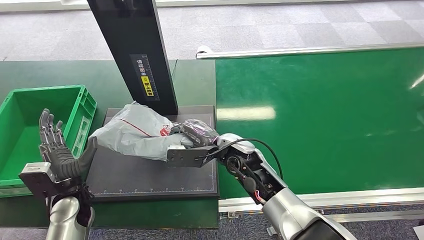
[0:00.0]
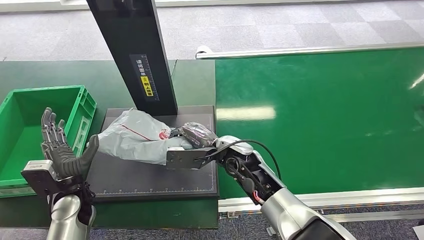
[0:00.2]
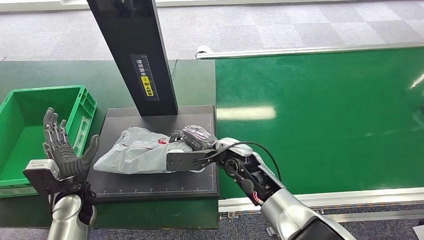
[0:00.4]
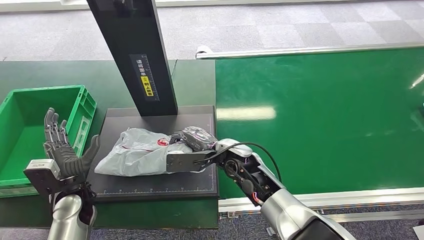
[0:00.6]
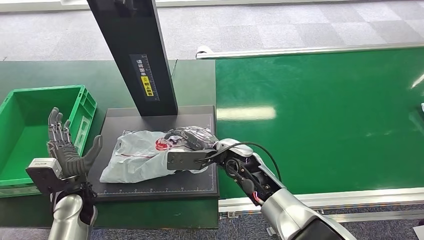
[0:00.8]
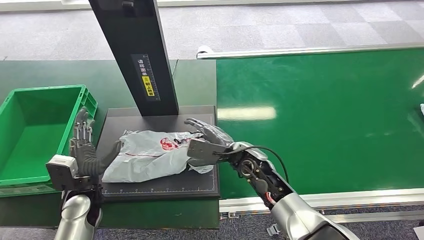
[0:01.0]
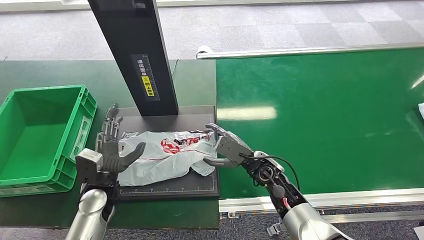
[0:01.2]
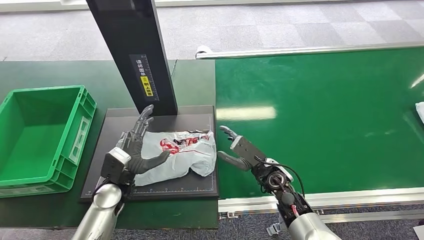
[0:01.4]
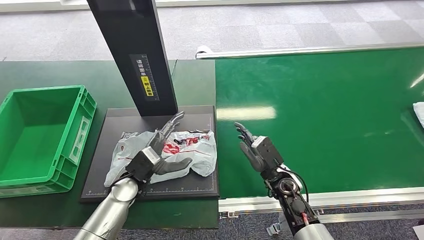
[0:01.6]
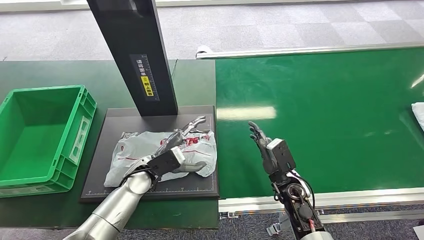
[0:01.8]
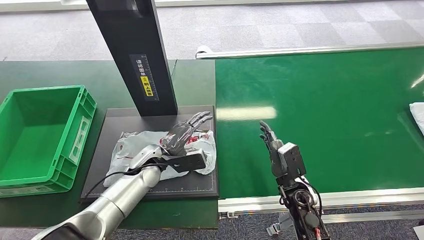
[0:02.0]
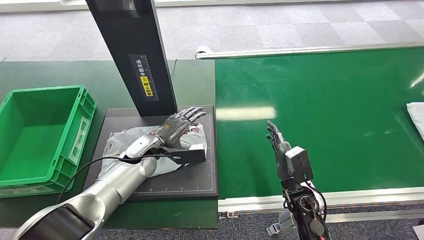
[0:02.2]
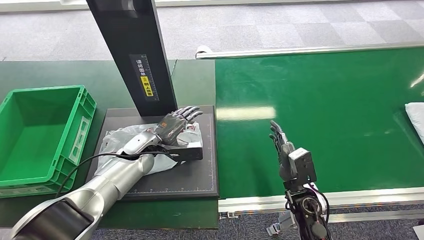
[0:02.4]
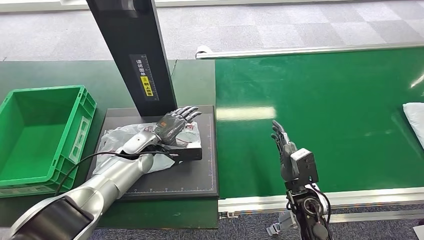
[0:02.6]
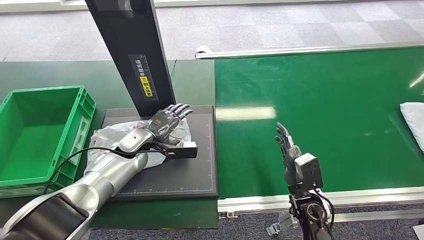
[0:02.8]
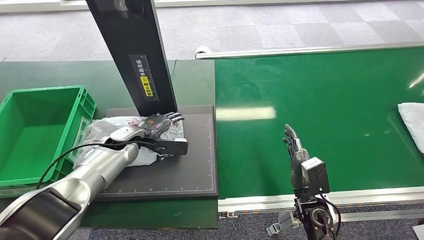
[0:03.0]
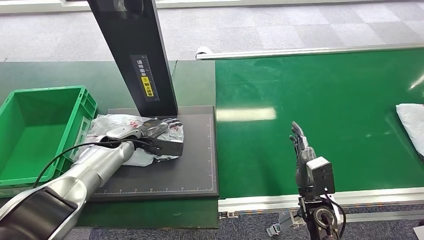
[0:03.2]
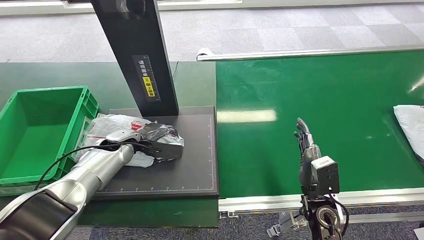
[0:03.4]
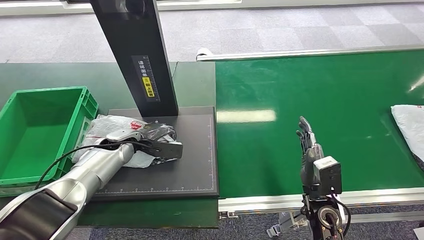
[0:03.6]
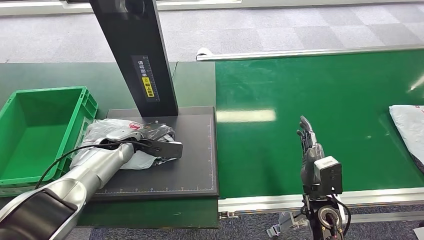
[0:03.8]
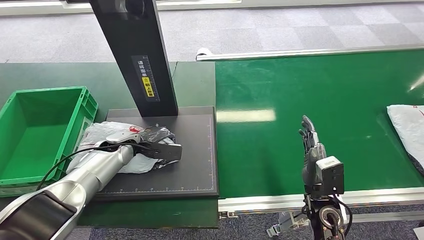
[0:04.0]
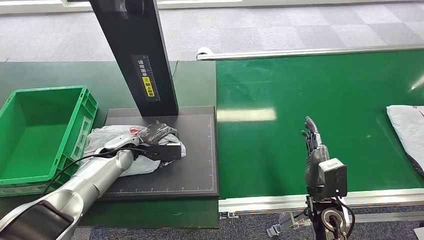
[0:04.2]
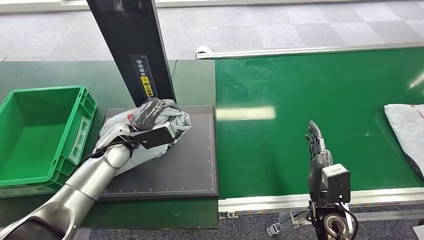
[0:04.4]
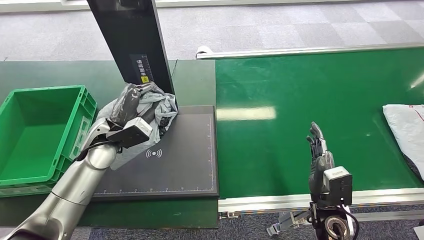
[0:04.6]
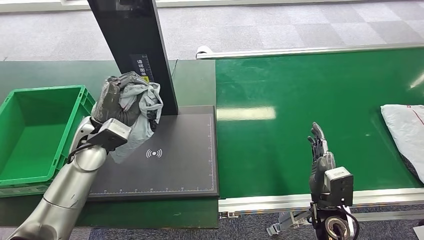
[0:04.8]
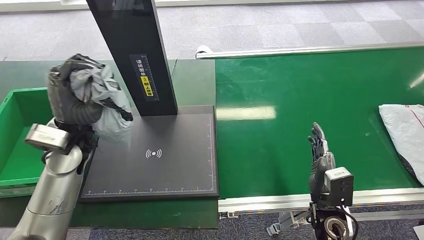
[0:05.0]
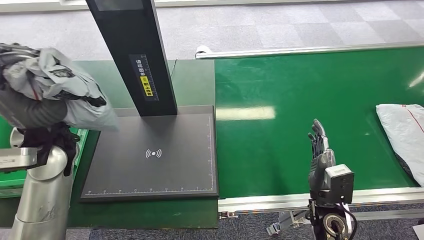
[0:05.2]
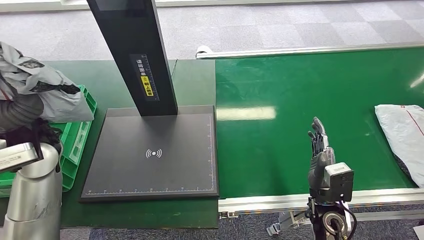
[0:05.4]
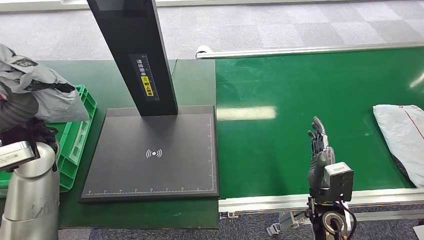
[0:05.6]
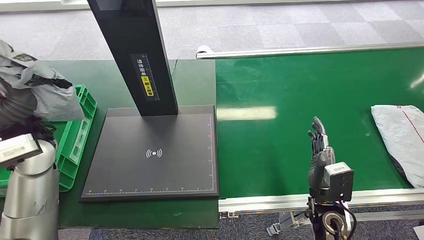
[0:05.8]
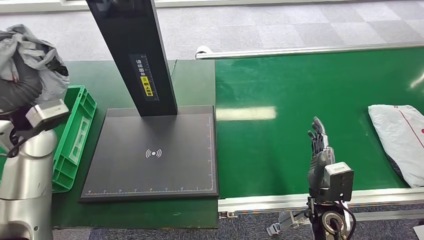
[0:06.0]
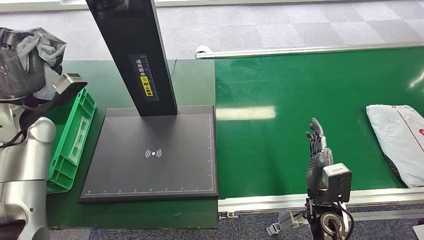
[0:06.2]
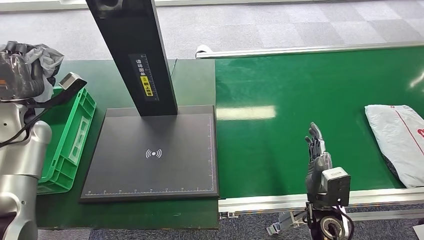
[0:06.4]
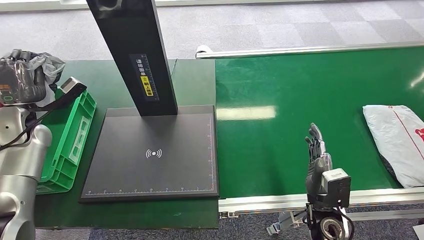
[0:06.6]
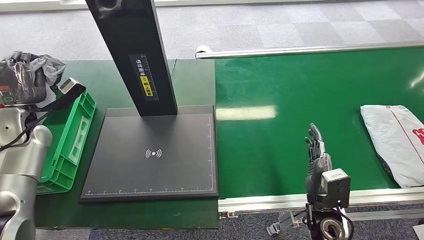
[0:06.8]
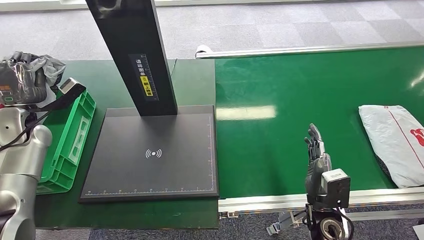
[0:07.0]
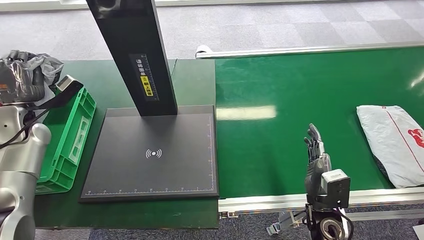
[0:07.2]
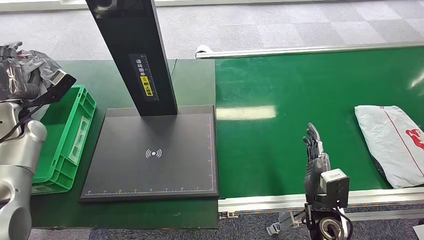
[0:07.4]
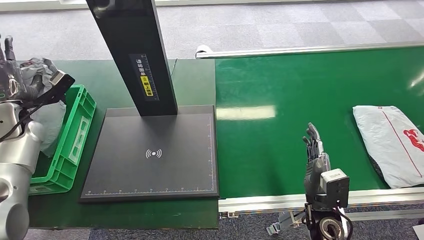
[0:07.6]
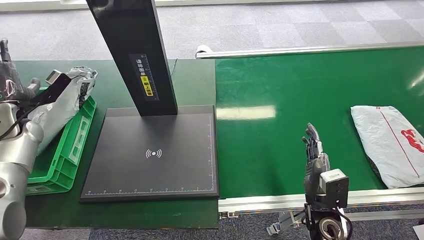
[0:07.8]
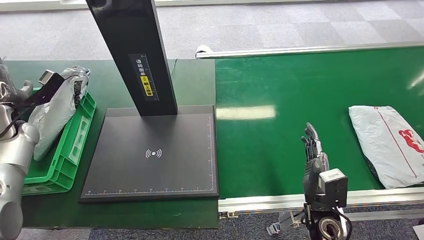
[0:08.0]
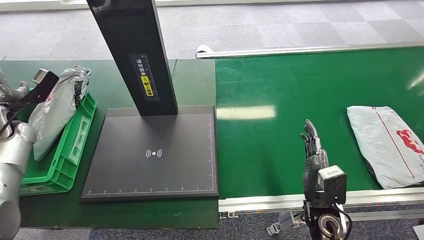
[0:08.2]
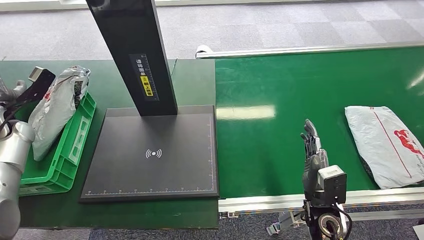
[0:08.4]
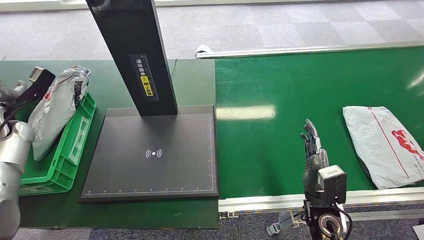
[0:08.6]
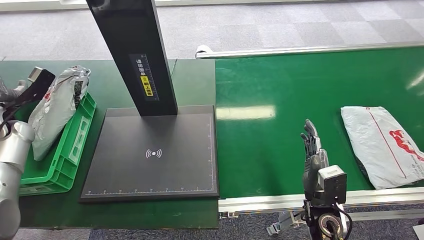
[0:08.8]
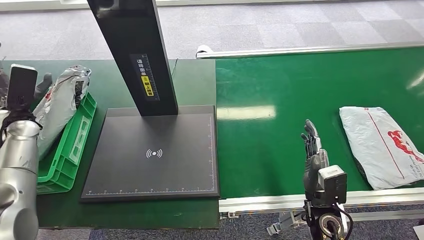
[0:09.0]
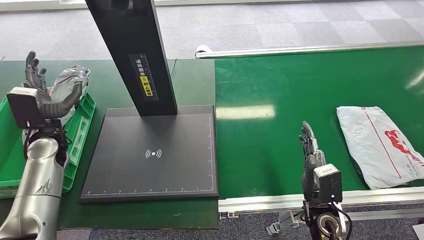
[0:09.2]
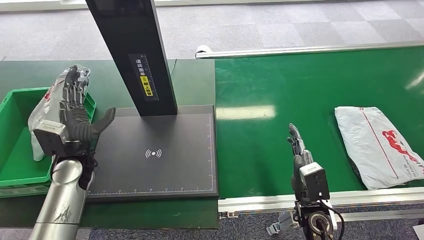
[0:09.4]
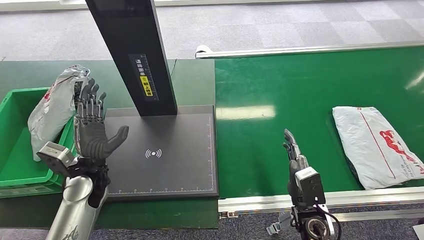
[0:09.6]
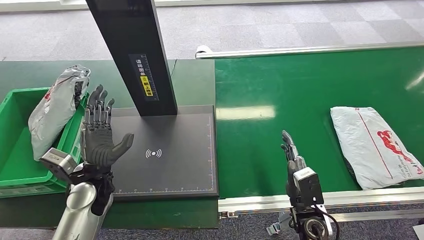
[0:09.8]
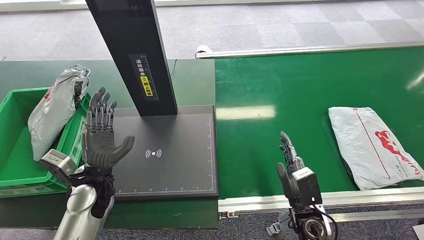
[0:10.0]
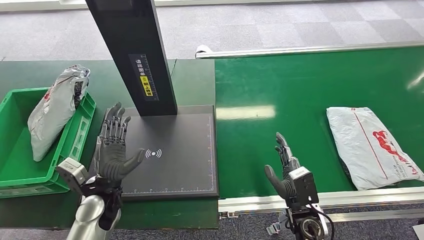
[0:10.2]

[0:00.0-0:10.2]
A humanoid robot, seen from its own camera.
Step, 0:01.4 to 0:05.0: Pick up the package from the inbound machine.
Step, 0:05.2 to 0:10.2: Place the package into the parcel locker.
0:00.0 to 0:01.4: The right hand heads to the right and downward, covering about 15 cm; the left hand moves to the right, roughly 10 cm.
0:03.0 to 0:04.4: The left hand shifts by roughly 5 cm.
0:05.8 to 0:07.2: The left hand moves to the left, forward and downward, roughly 20 cm.
0:07.2 to 0:08.8: The left hand ends up roughly 5 cm from where it was.
0:08.8 to 0:10.2: The left hand is displaced to the right, backward and downward by some 30 cm.

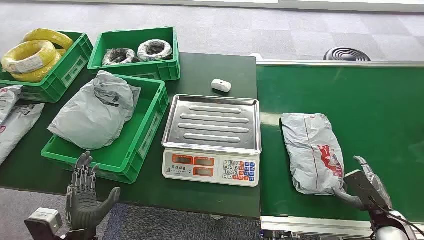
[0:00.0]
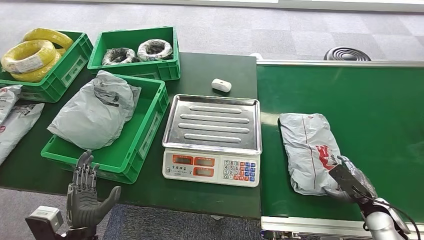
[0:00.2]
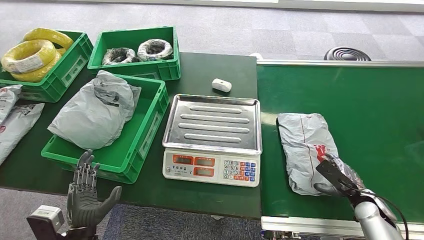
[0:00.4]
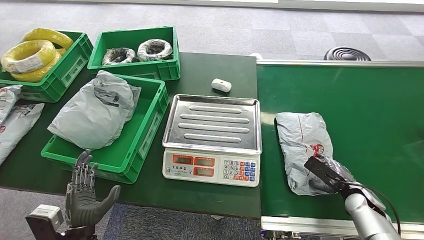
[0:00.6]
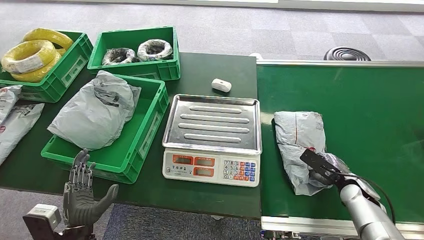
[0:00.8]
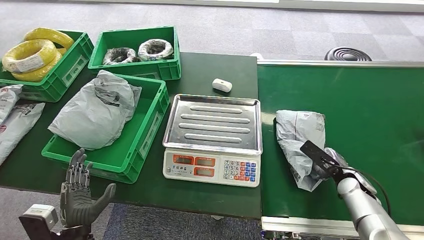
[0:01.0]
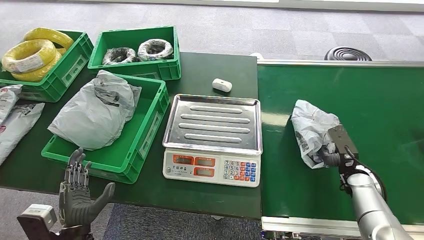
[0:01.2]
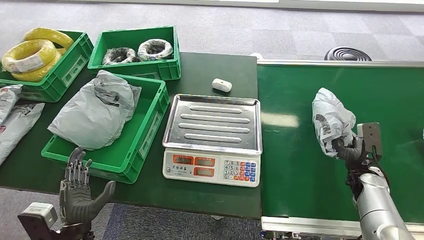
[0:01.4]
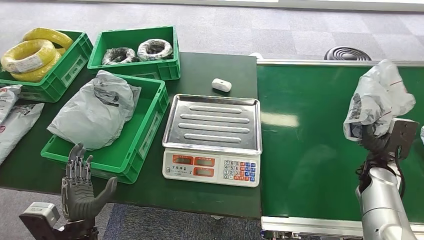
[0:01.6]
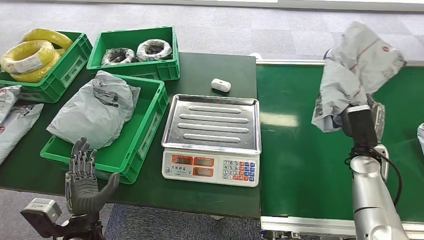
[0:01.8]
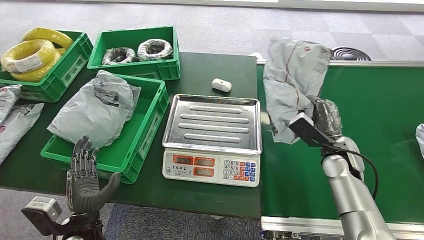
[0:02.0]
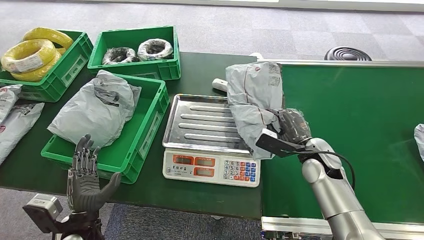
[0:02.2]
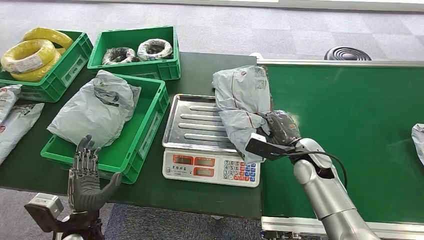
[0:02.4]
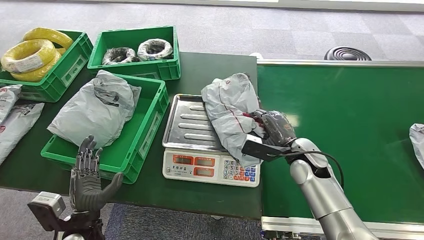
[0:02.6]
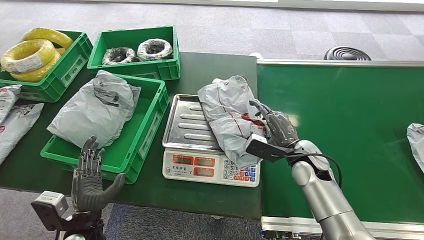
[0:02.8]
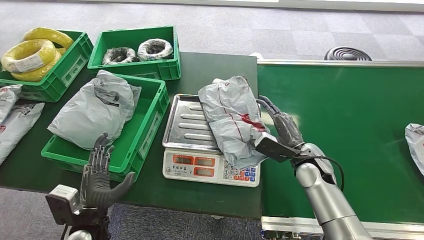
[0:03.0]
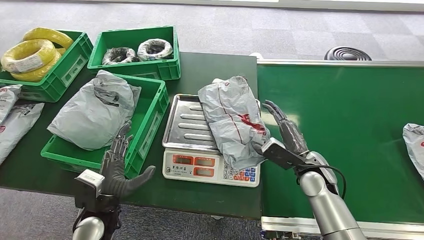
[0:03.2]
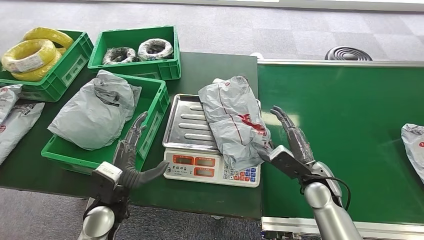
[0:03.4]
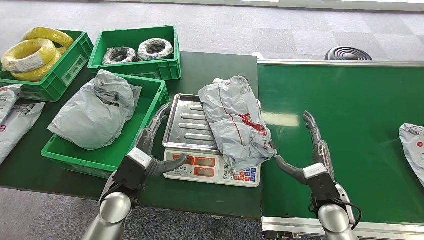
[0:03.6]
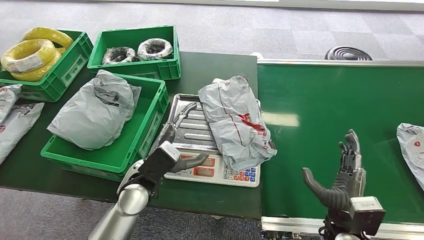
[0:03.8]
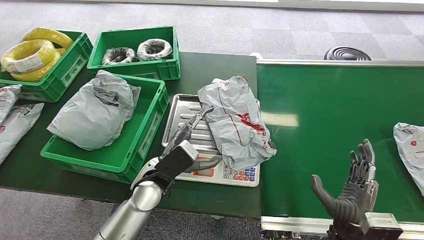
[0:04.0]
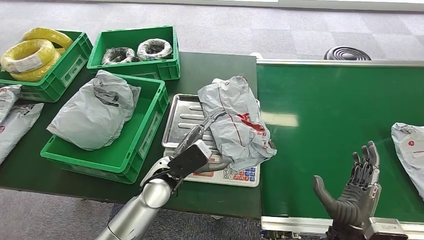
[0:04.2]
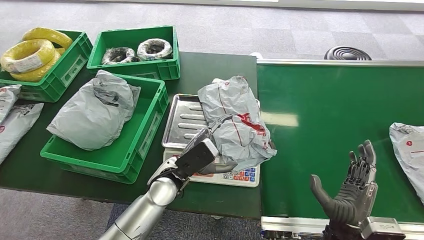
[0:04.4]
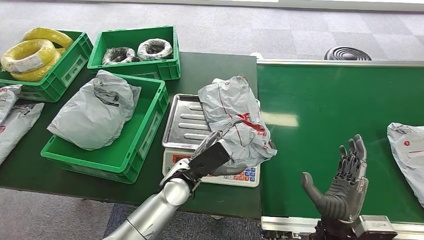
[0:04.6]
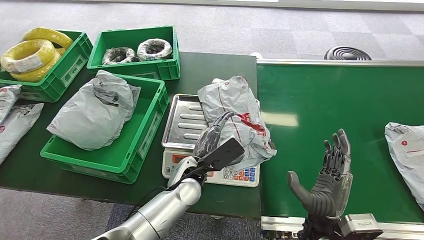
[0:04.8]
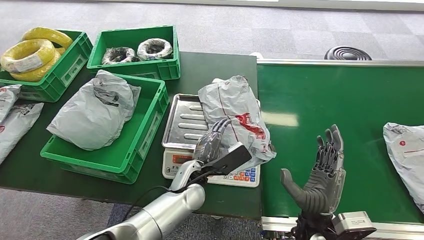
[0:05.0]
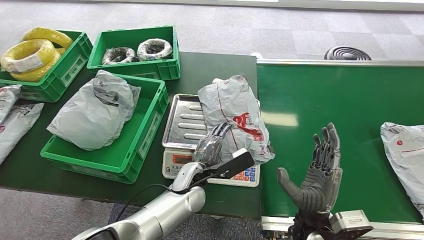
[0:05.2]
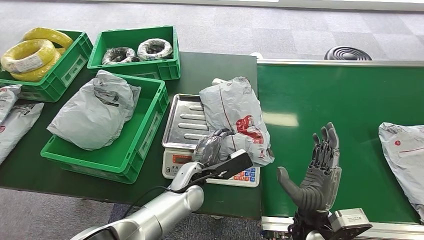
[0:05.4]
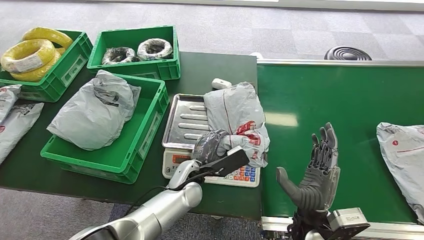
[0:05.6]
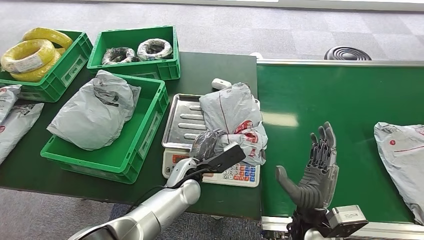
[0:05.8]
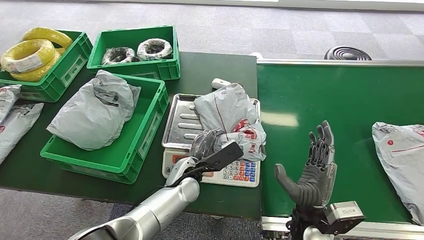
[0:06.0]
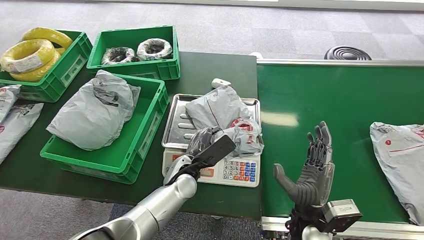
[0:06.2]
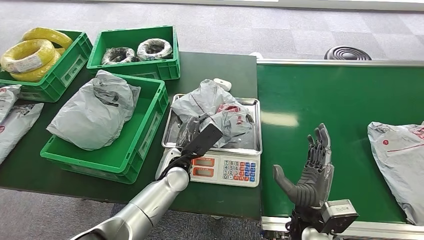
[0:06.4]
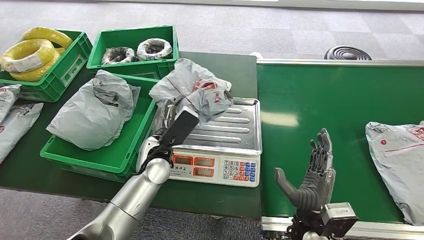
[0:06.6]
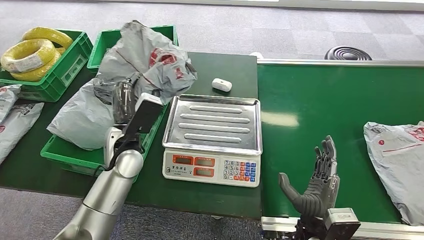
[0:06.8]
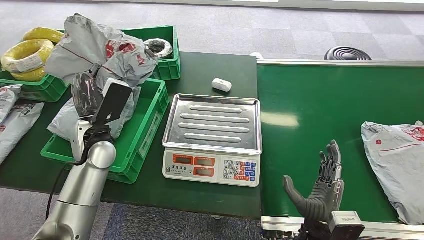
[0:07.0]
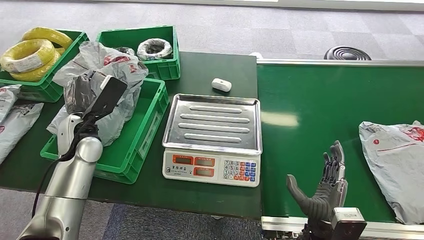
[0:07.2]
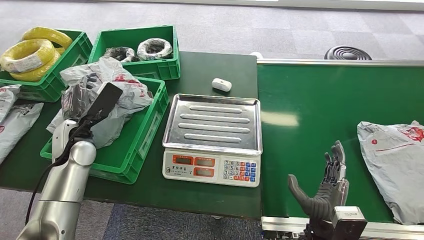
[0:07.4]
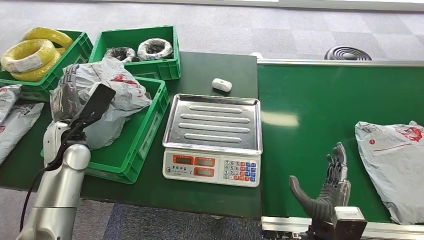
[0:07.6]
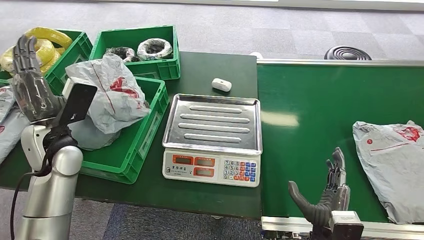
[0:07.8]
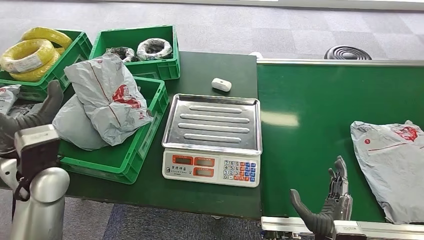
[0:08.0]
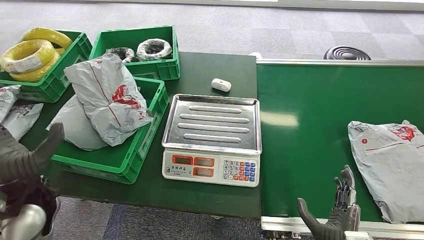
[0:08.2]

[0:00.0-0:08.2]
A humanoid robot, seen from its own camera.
Step, 0:00.0 to 0:01.4: Pick up the package from the conveyor belt.
Step, 0:01.8 to 0:03.2: Place the package onto the inbound machine.
Step, 0:03.4 to 0:06.8: Pick up the package from the inbound machine.
Step, 0:07.2 to 0:08.2: Place the package into the parcel locker.
0:03.2 to 0:05.0: The right hand moves backward, some 15 cm; the left hand shifts about 20 cm to the right and forward.
